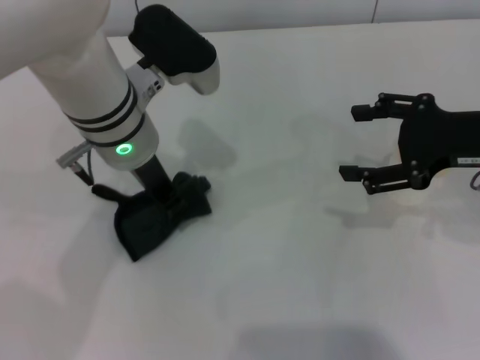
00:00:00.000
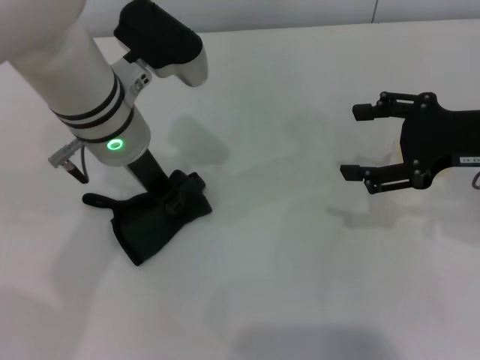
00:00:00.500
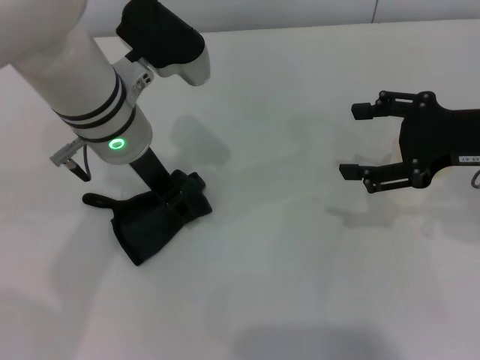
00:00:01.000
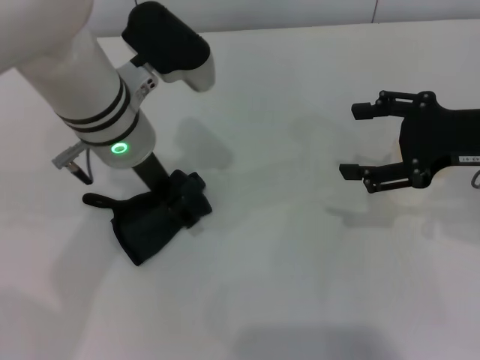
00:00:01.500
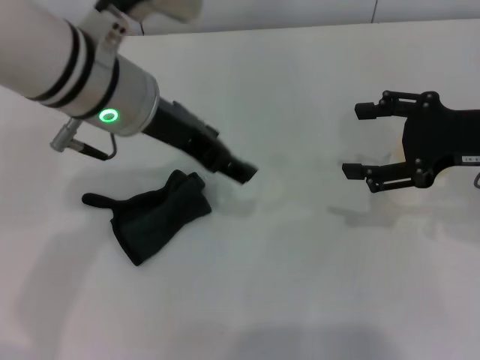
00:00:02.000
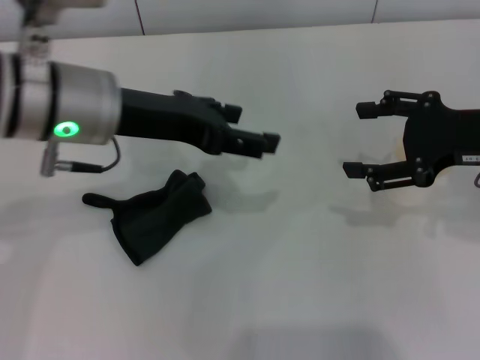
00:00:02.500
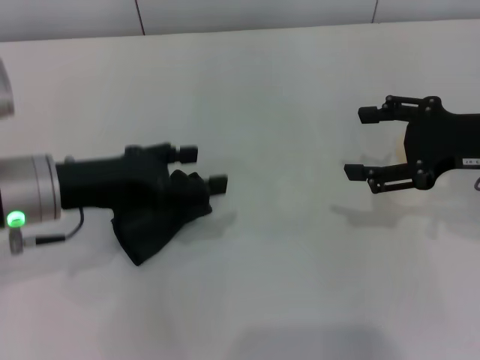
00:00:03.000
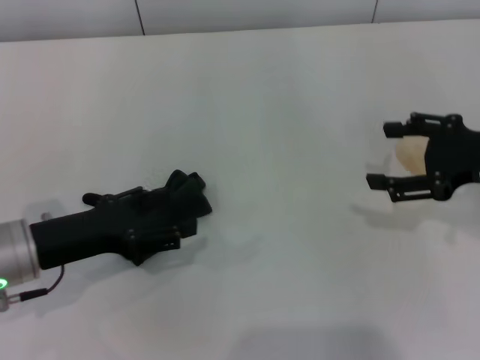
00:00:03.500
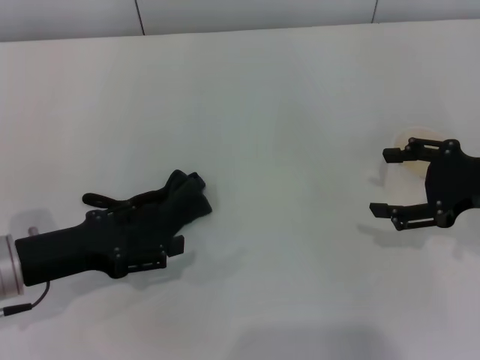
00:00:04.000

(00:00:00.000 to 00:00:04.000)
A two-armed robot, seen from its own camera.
Step, 00:00:00.500 - 00:00:01.500: Place the rag on the table with the left gripper.
00:00:00.000 - 00:00:02.000: The left gripper is displaced upward by roughly 5 cm, and opens its fingers.
00:00:02.000 - 00:00:04.000: The right gripper ends up approximately 5 cm from where it was. The left gripper moves downward, to the left and backward, roughly 25 cm.
